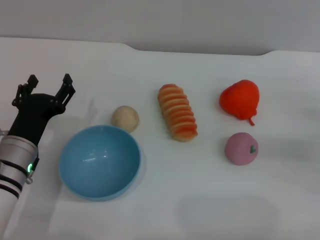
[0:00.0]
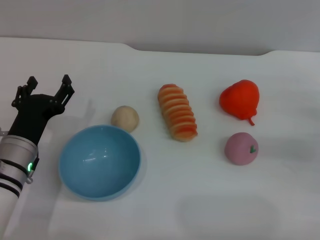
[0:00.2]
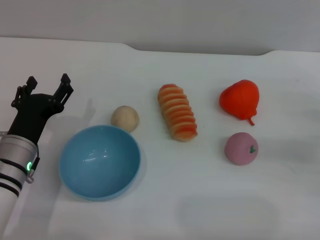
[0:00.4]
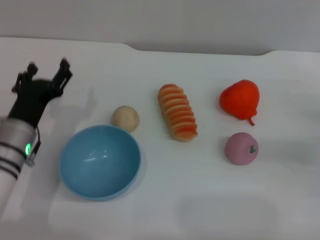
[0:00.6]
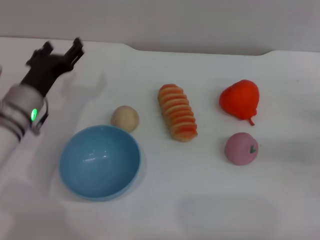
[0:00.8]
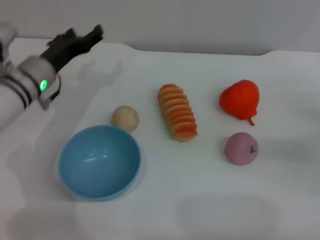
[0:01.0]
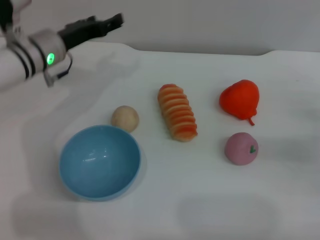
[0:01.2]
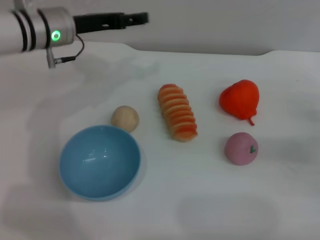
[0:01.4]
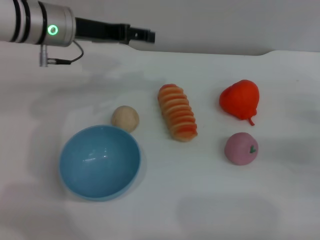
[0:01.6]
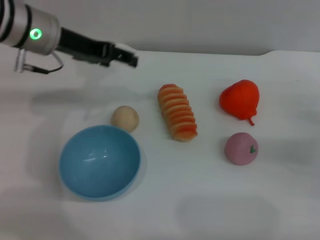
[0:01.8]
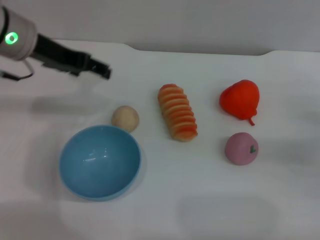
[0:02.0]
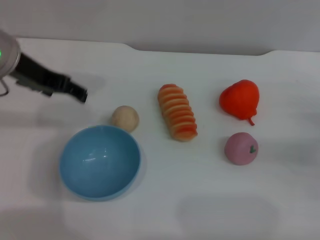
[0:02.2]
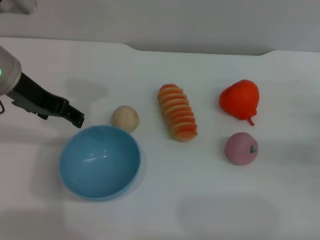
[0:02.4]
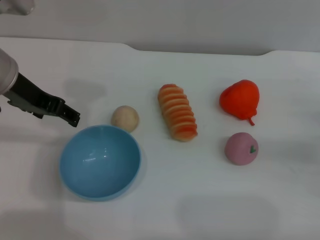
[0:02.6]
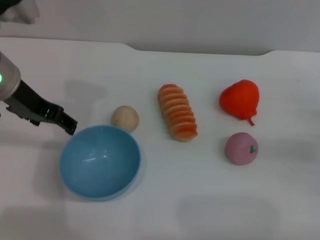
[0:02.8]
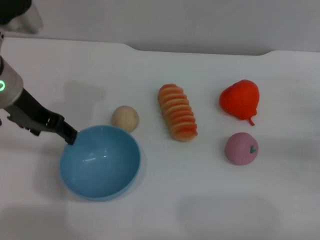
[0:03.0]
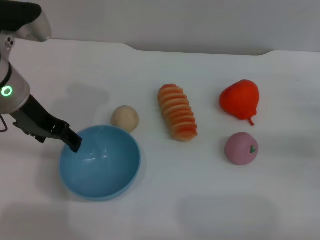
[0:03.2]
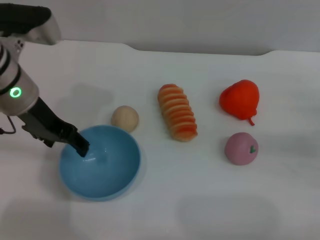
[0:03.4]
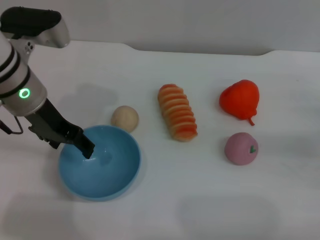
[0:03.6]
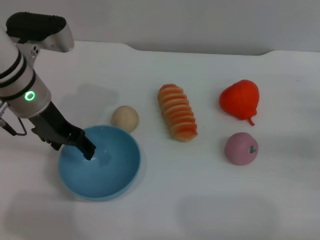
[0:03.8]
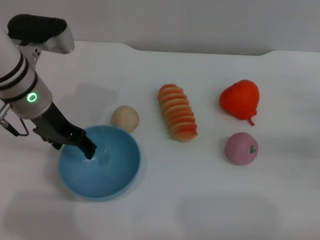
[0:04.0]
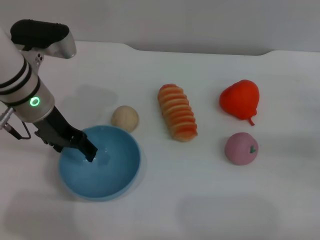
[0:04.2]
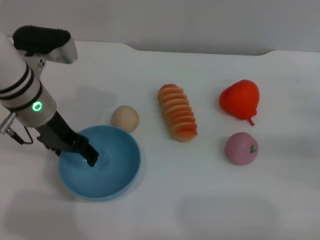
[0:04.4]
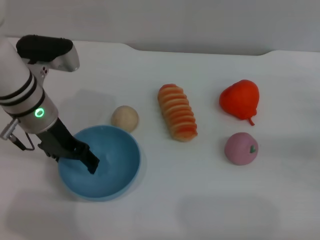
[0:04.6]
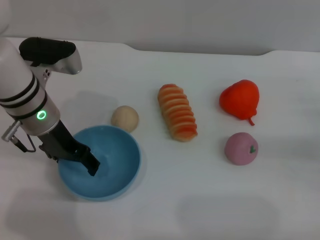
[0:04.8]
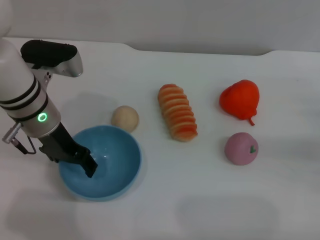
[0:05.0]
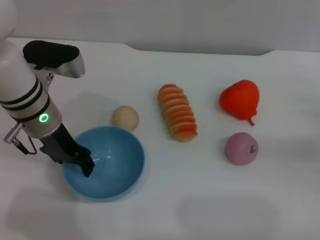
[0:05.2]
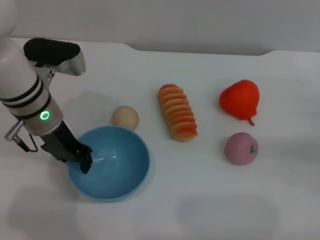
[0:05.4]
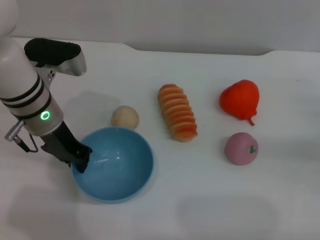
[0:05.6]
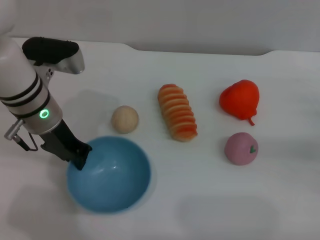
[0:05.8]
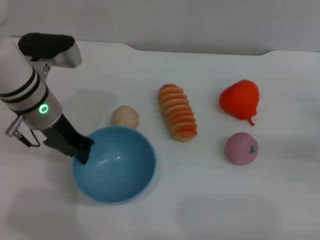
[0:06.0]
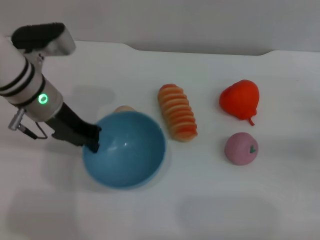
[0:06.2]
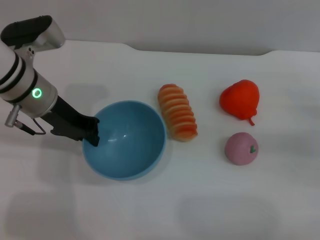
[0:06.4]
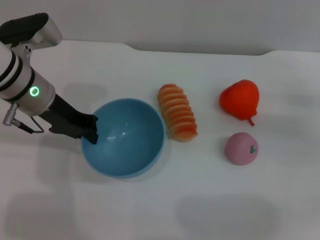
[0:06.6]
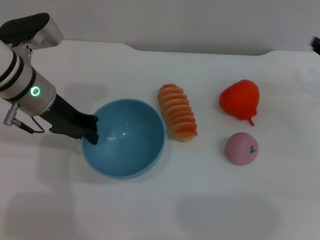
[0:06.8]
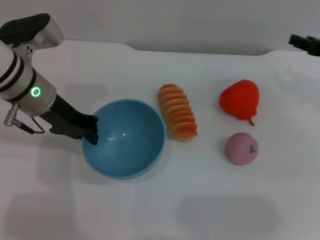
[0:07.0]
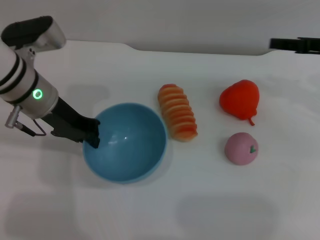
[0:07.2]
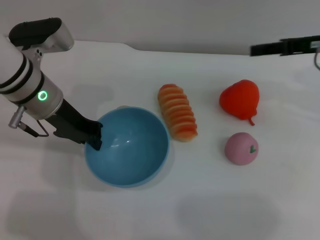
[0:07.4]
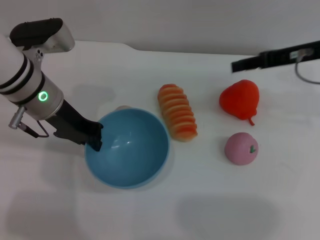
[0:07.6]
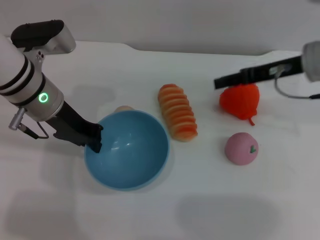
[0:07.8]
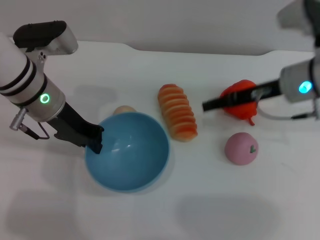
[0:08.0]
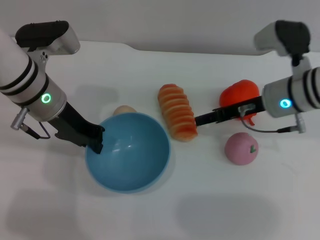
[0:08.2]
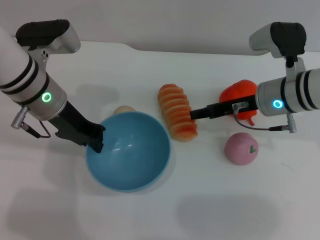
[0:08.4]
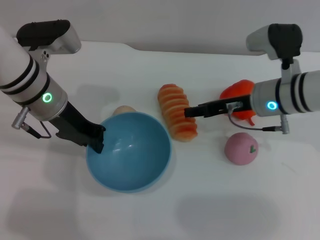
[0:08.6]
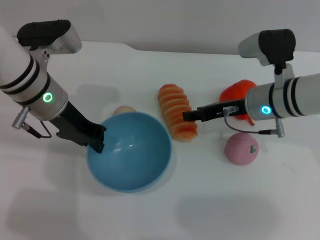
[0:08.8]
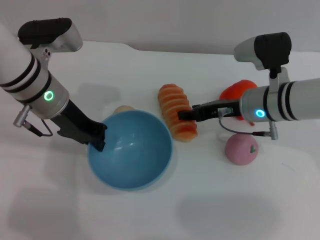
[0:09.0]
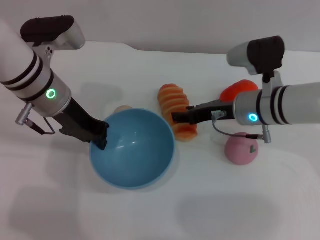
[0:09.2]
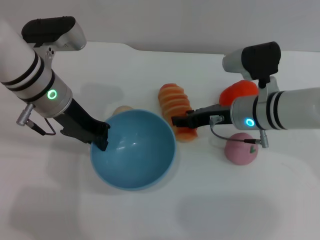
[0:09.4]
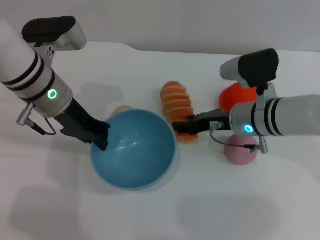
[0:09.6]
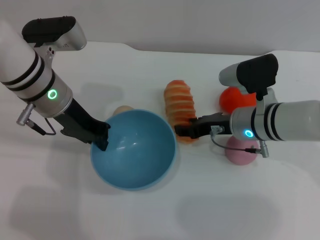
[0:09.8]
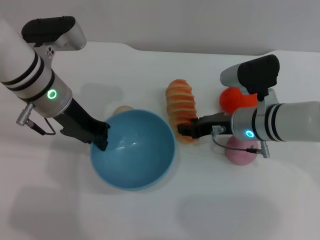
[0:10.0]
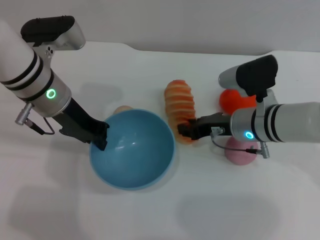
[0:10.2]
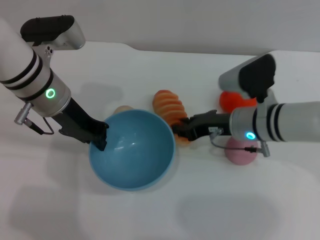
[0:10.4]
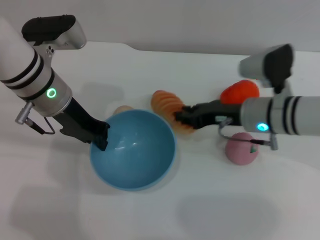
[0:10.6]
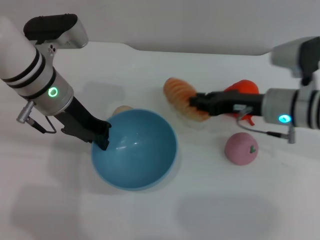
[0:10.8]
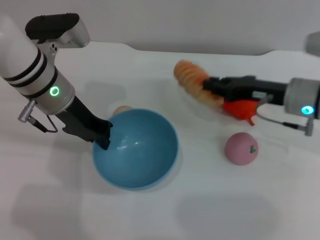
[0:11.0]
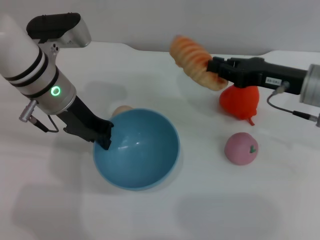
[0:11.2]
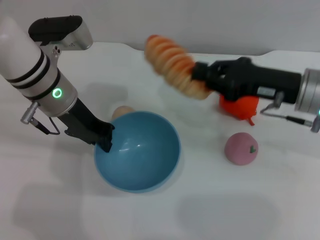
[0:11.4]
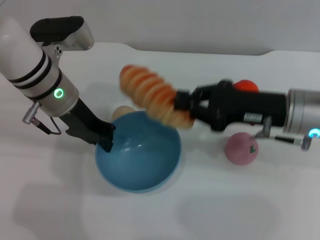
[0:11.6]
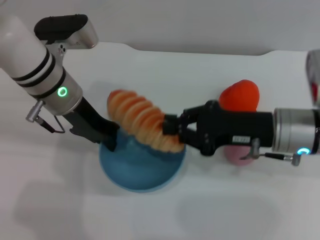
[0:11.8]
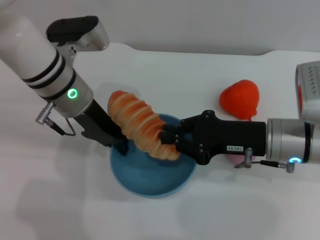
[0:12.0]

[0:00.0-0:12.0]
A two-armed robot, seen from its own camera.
Task of the whole recording: put the bread into the blue bowl and pour it out repeatedly.
Step, 0:00.0 to 0:06.4: Pick up the bowl with the left gripper.
Step, 0:06.6 to 0:10.8: Pick up the bread with the right gripper.
0:00.0 to 0:01.6: The left gripper travels forward and upward by approximately 25 cm.
0:01.6 to 0:03.0: The left gripper moves backward, approximately 10 cm.
0:03.0 to 0:04.4: The left gripper moves downward, some 5 cm.
0:04.4 to 0:06.0: The left gripper closes.
0:06.0 to 0:07.6: The right gripper moves upward, to the left and forward, roughly 20 cm.
0:07.6 to 0:09.0: The right gripper heads downward and to the left, covering approximately 15 cm.
0:09.0 to 0:10.4: The grippers stay close to where they were, moving slightly.
0:10.4 to 0:12.0: The right gripper heads backward, covering roughly 5 cm, and closes.

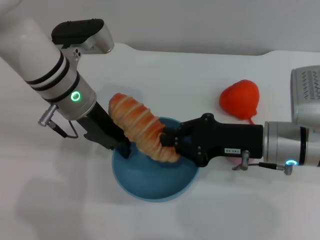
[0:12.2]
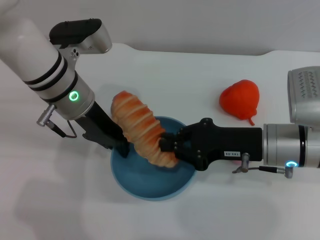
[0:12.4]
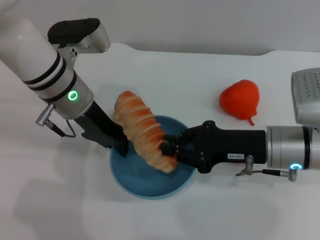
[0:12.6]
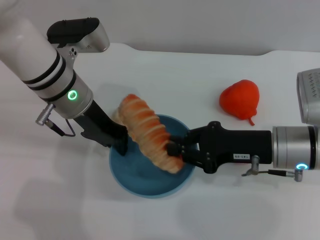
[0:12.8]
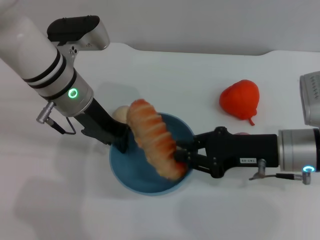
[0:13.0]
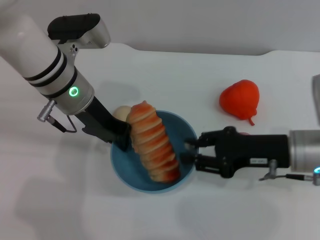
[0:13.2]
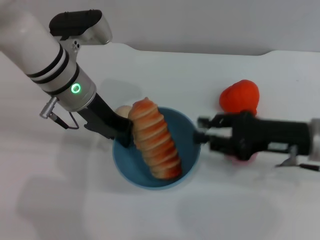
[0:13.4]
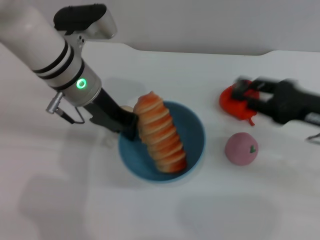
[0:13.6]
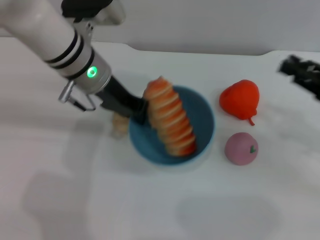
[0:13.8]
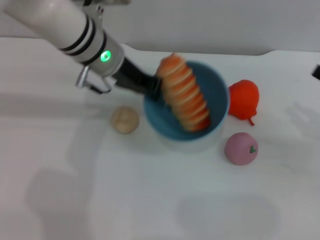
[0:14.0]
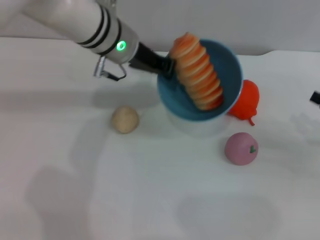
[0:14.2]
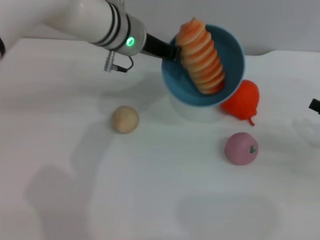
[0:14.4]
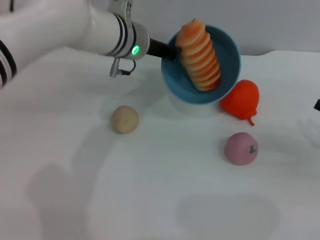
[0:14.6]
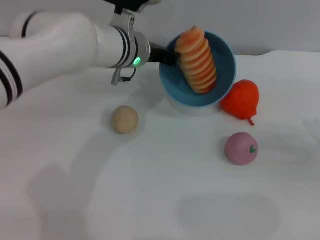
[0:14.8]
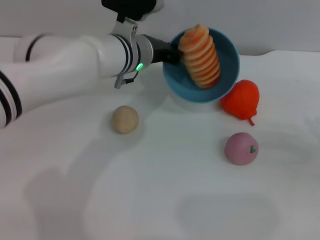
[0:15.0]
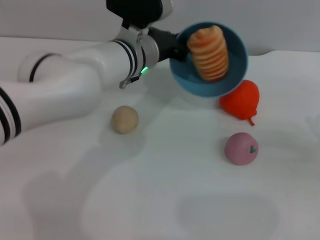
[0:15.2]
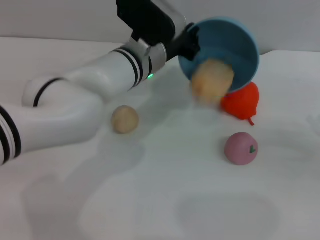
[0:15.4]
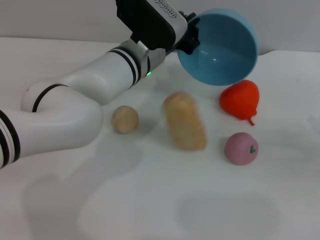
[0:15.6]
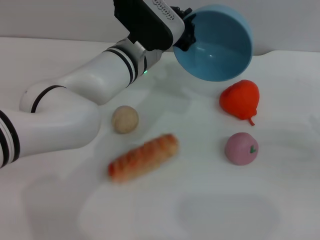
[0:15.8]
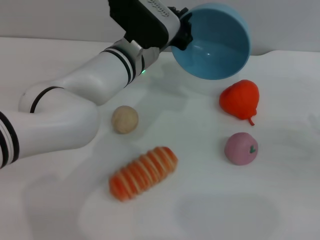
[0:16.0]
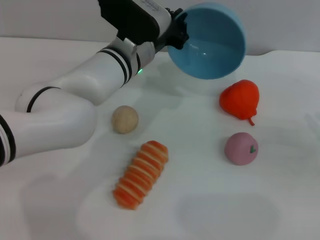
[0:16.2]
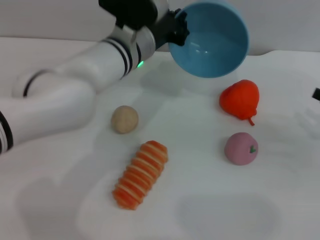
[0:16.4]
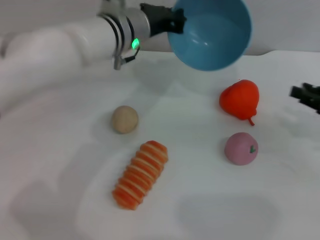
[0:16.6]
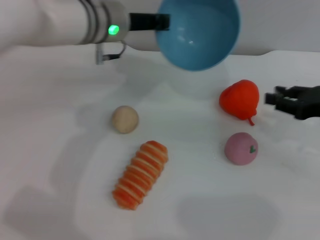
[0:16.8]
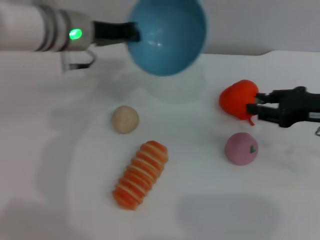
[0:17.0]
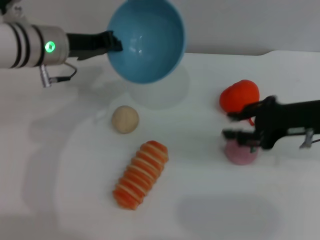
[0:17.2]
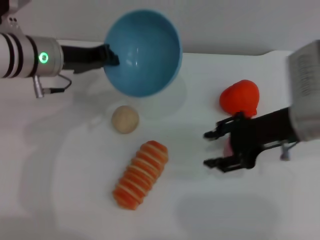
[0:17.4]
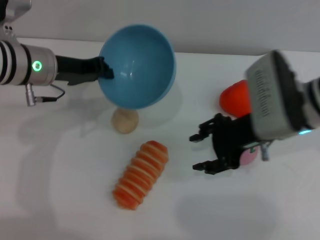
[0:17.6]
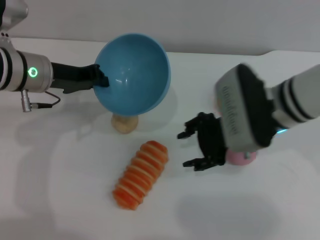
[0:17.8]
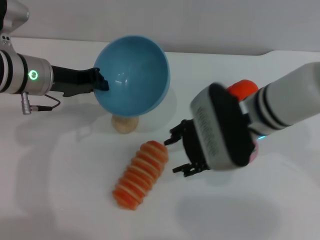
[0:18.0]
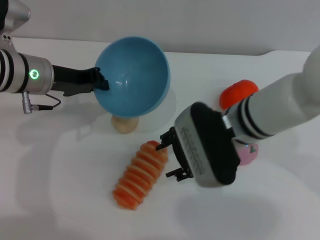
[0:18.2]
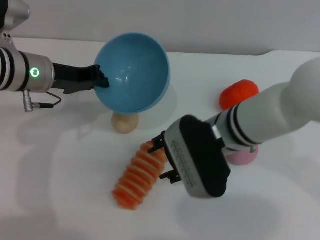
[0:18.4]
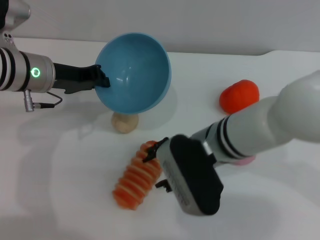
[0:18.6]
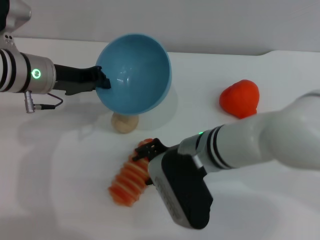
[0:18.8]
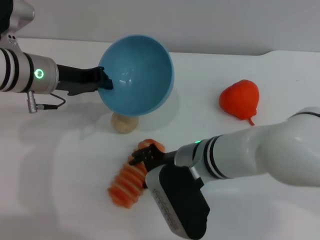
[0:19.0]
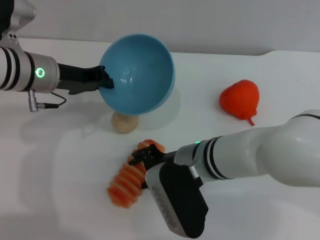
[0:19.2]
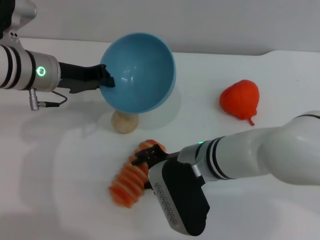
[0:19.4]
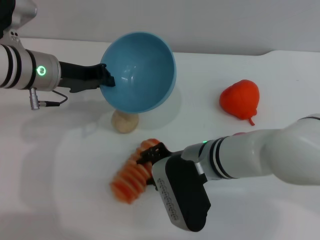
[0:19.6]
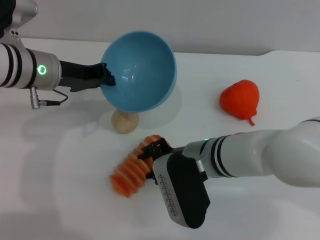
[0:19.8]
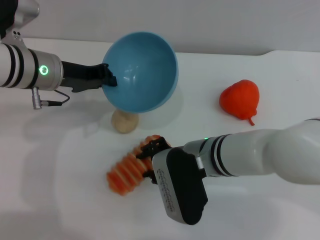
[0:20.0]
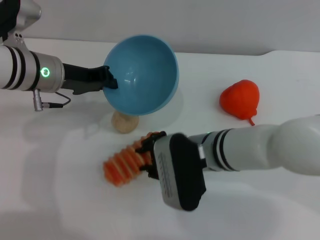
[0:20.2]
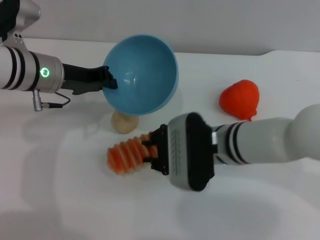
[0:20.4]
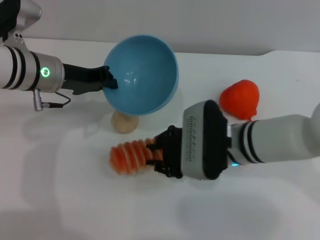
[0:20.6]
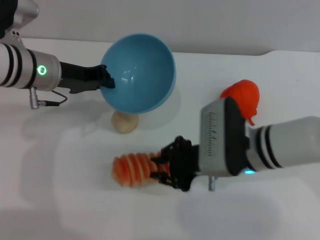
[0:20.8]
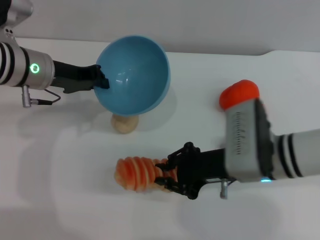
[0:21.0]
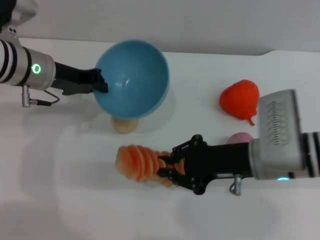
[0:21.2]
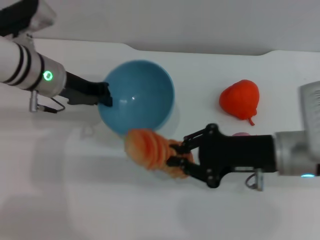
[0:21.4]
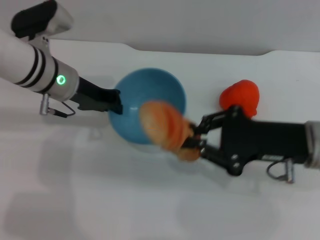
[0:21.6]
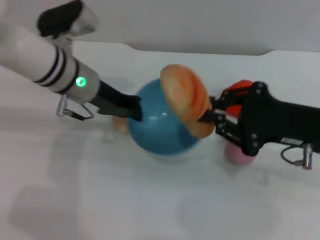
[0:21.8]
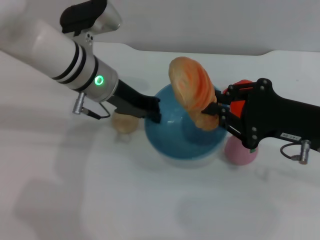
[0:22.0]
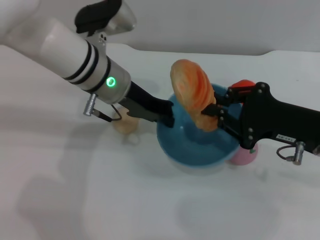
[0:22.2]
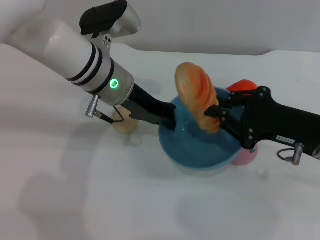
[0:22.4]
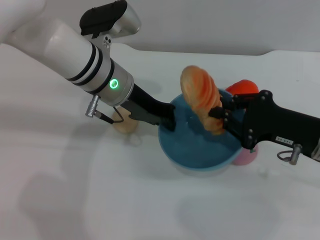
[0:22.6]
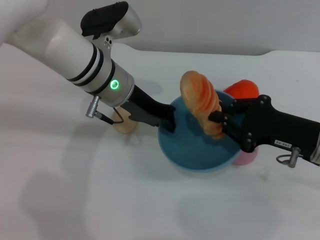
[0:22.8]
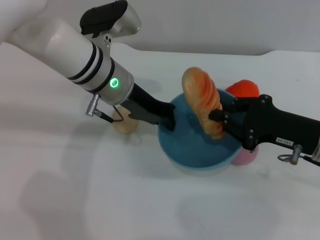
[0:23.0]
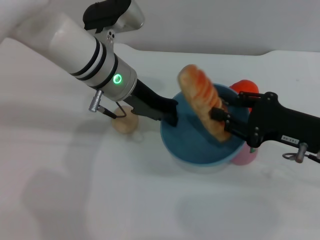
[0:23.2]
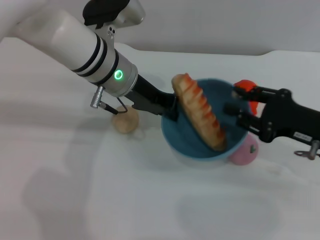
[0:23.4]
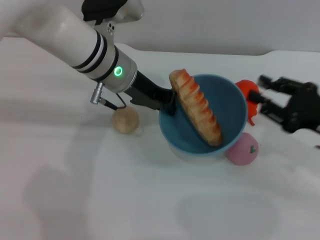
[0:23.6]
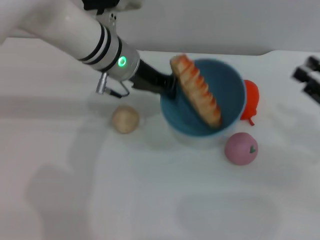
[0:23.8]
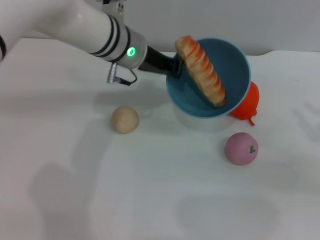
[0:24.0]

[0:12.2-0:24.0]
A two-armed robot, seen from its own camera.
Task of the whole recording: put the bread into the blue bowl and pour it out repeatedly.
Step, 0:13.6 to 0:15.8: Pour the bread out of the bowl.
Step, 0:16.0 to 0:21.2: Pick up the bread with the right gripper.
0:12.2 to 0:13.6: The right gripper is displaced to the right by roughly 10 cm, and opens its fingers.
0:13.6 to 0:15.2: The right gripper goes about 10 cm to the right and downward; the left gripper goes some 10 cm to the right.
0:15.2 to 0:16.6: The right gripper ends up some 5 cm from where it was.
0:16.6 to 0:18.2: The left gripper moves to the left, some 15 cm; the right gripper is displaced to the left by about 25 cm, and opens its fingers.
0:18.2 to 0:19.6: The right gripper travels downward by about 5 cm.
0:19.6 to 0:21.0: The right gripper moves to the right, roughly 10 cm, and closes.
0:21.0 to 0:22.6: Both grippers travel together to the right, some 10 cm.
0:22.6 to 0:24.0: The right gripper travels to the right by roughly 10 cm, and opens.
